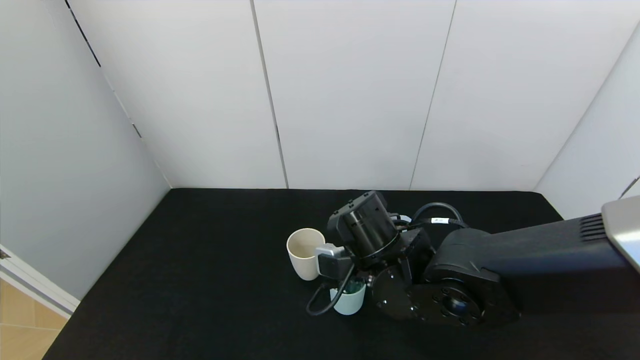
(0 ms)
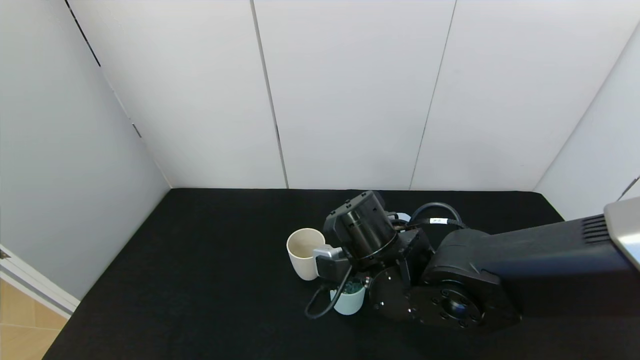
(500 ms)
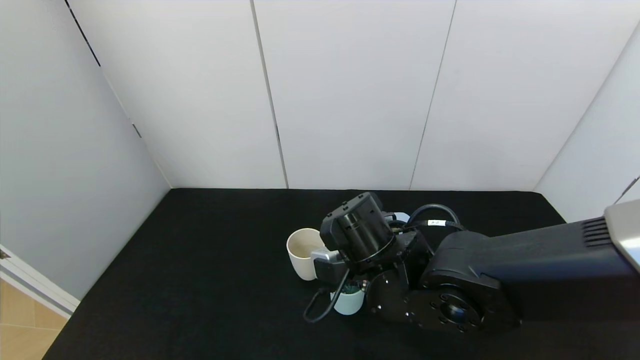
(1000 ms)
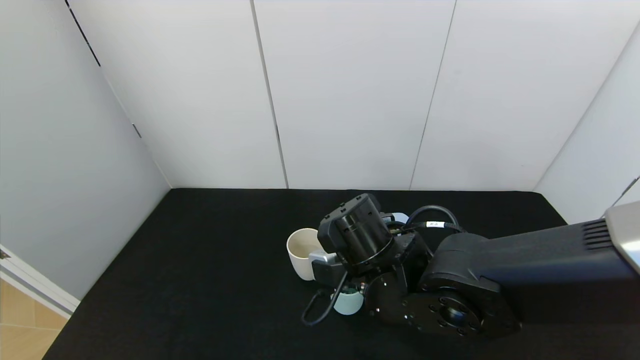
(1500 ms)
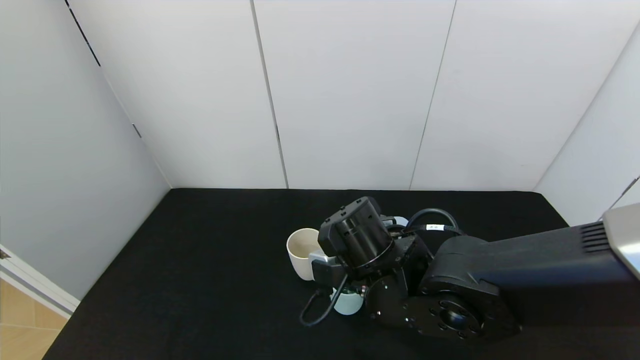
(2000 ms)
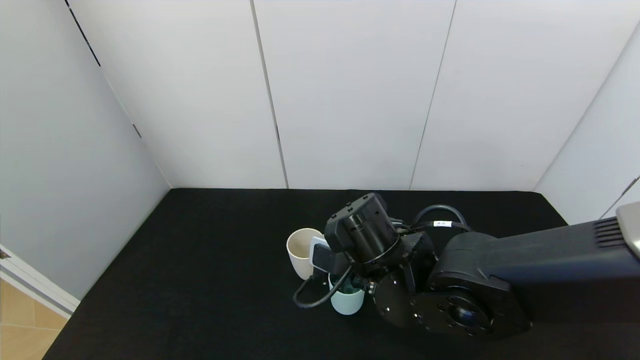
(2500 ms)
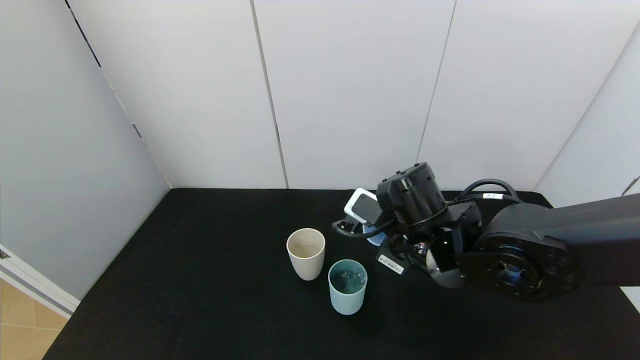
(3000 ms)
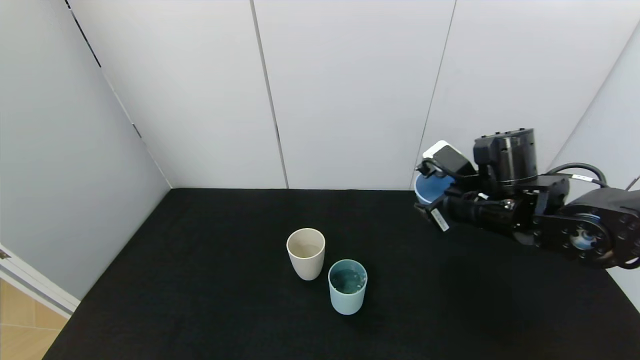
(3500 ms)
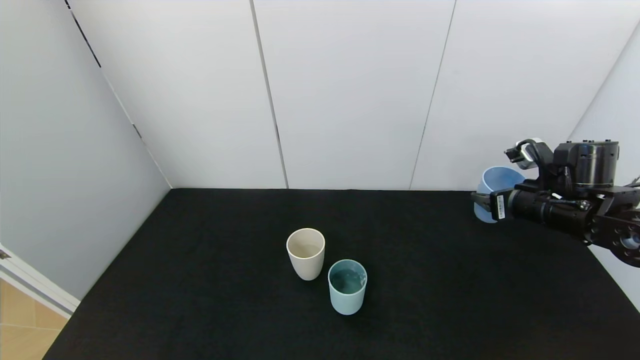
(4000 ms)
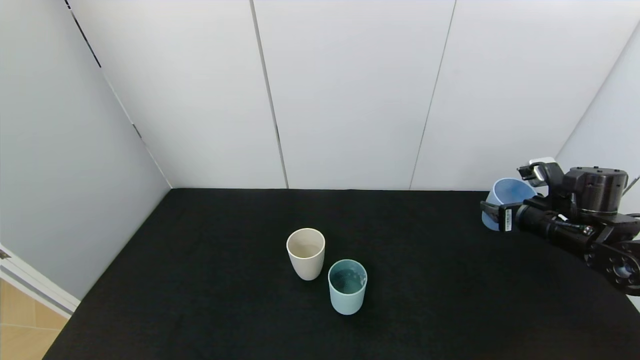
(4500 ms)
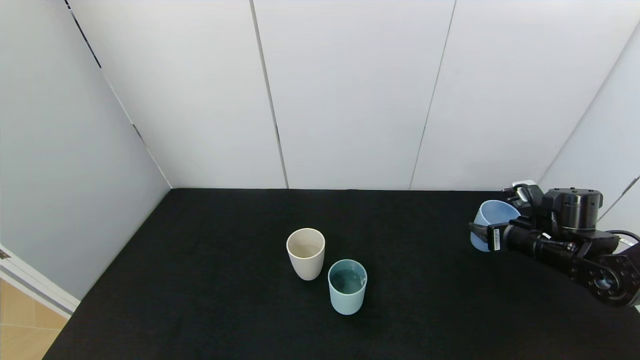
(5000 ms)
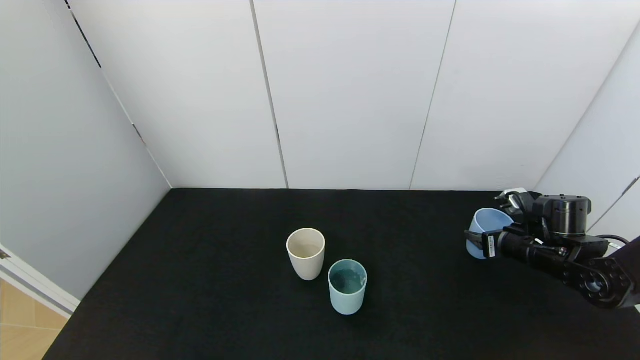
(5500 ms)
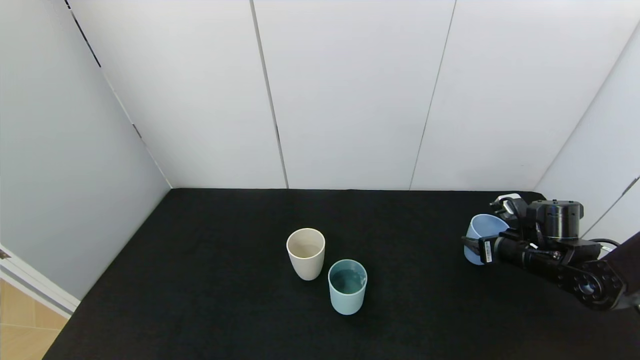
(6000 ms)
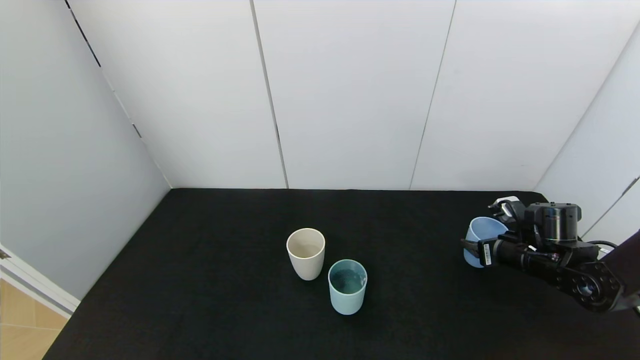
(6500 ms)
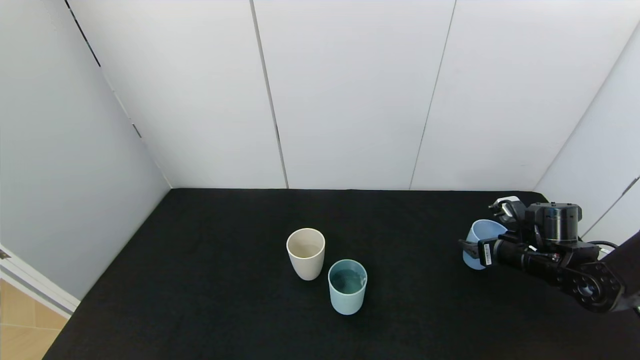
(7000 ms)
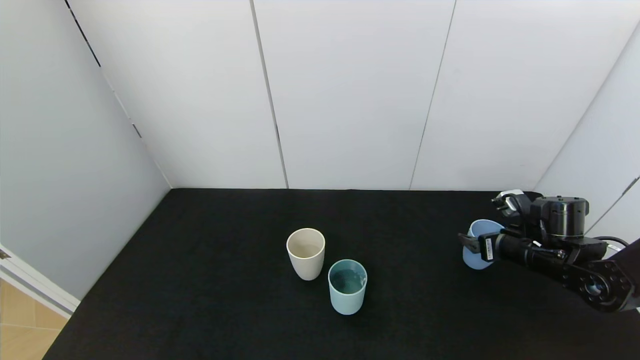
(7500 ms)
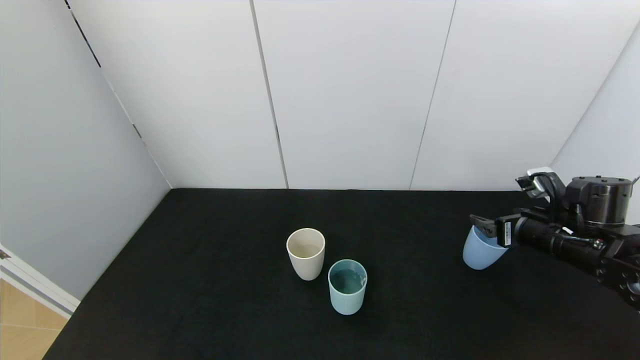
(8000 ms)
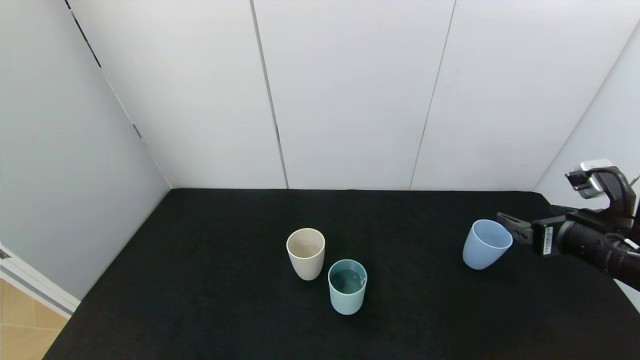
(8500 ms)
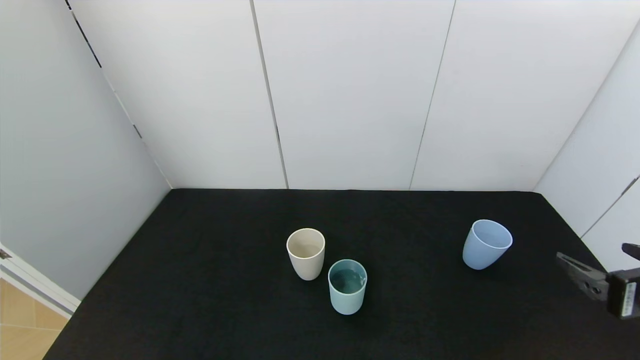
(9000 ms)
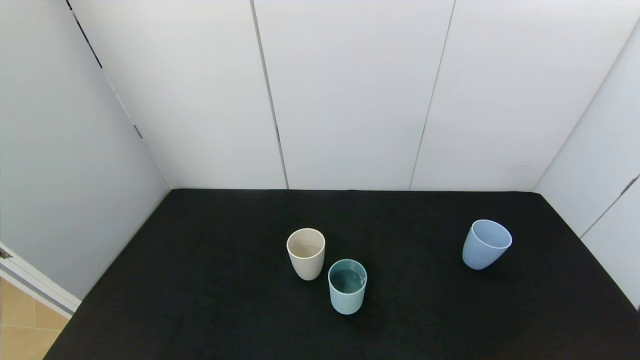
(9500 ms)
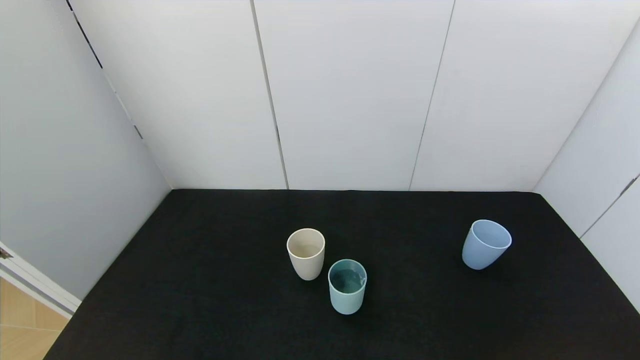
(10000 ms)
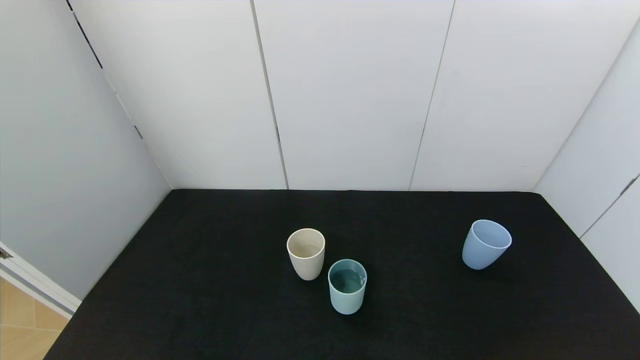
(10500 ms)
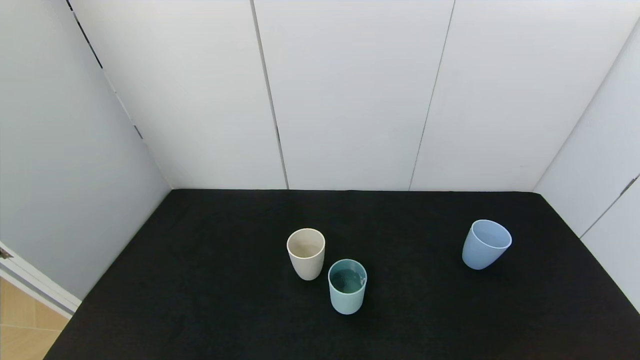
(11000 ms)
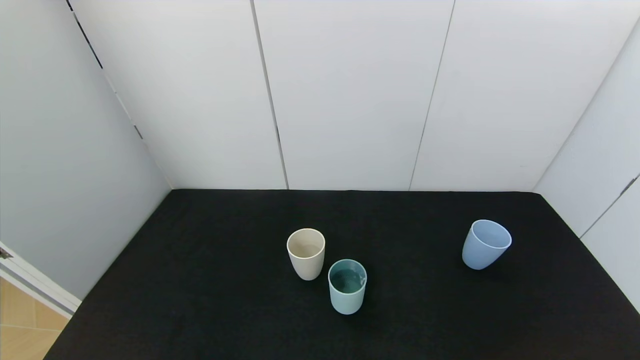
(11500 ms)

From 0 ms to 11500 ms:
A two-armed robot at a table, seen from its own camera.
Task of the whole recording: use the gripper to pour the water into the other two cups on black table.
Step, from 0 ms to 3000 ms: Pour water from blue cup to green cup with the right gripper.
Step, from 3500 ms to 8500 ms: Place the blue cup with the right gripper.
From 0 ms to 2000 ms: Both grippers stay put.
From 2000 ms to 4000 ms: The right gripper moves to the right, some 25 cm.
From 4000 ms to 6000 ms: The right gripper goes about 10 cm downward.
From 6000 ms to 7500 ms: The right gripper opens its fingers.
From 7500 ms to 9500 ms: The right gripper heads backward, covering approximately 30 cm.
